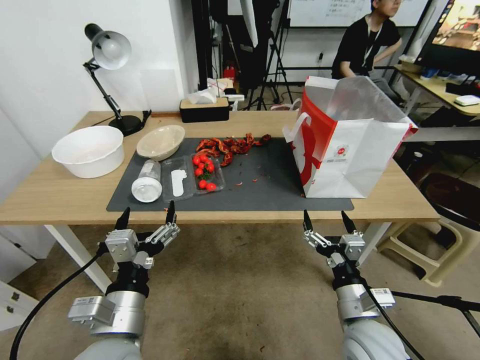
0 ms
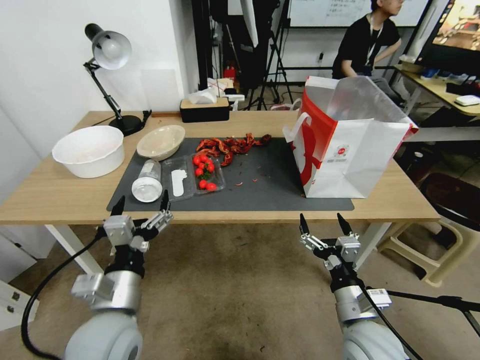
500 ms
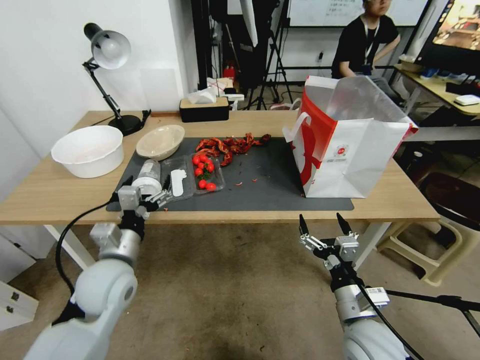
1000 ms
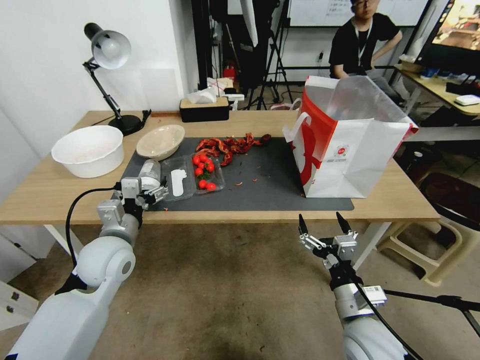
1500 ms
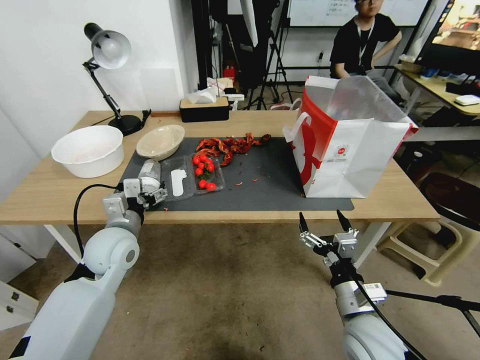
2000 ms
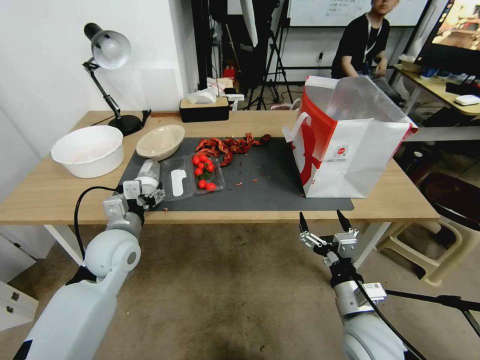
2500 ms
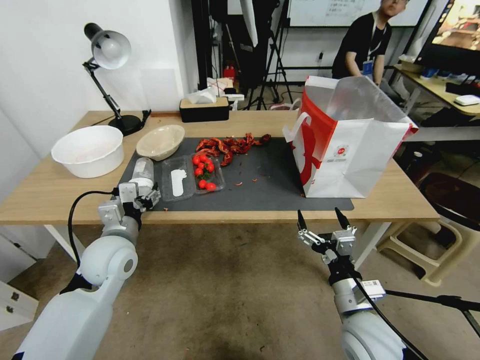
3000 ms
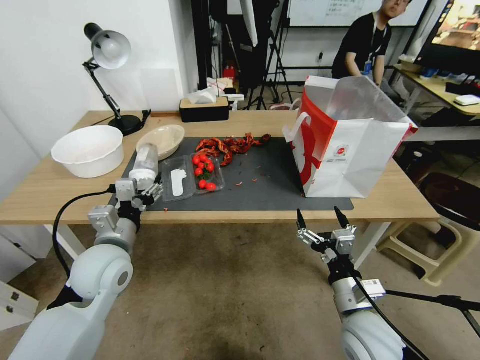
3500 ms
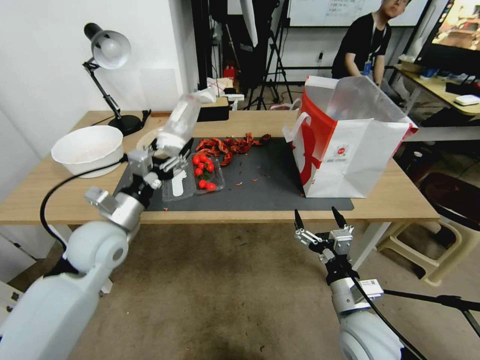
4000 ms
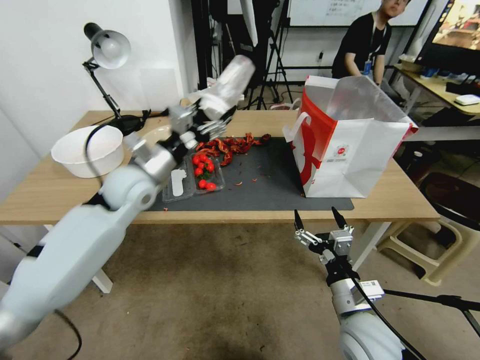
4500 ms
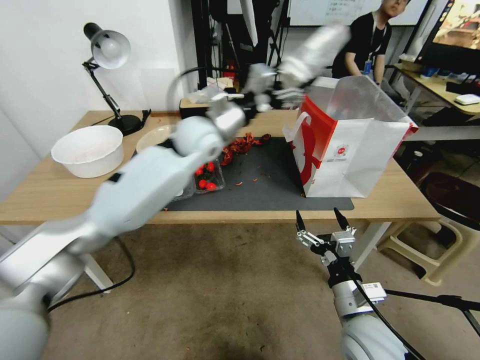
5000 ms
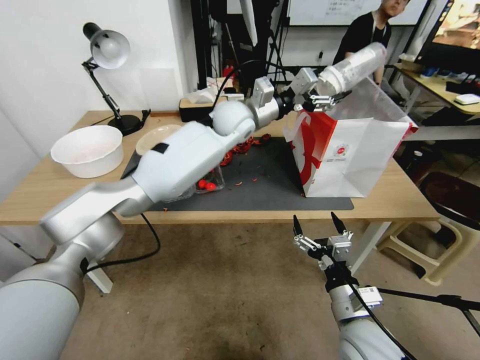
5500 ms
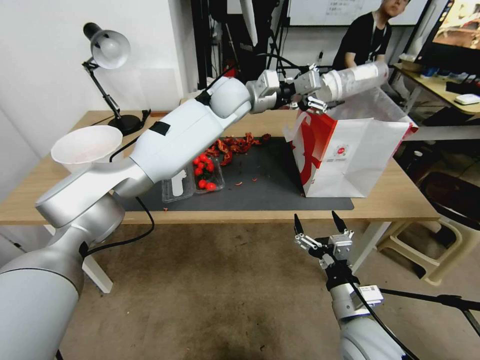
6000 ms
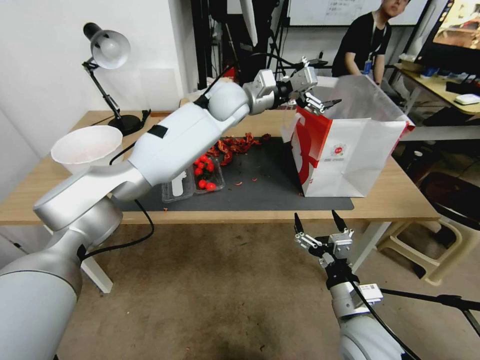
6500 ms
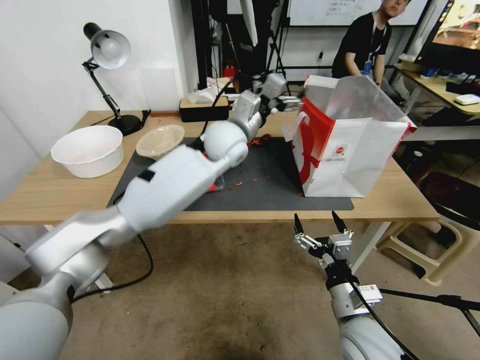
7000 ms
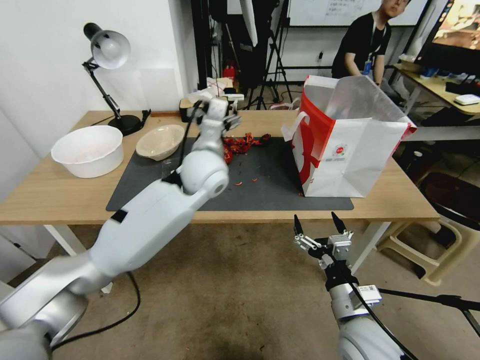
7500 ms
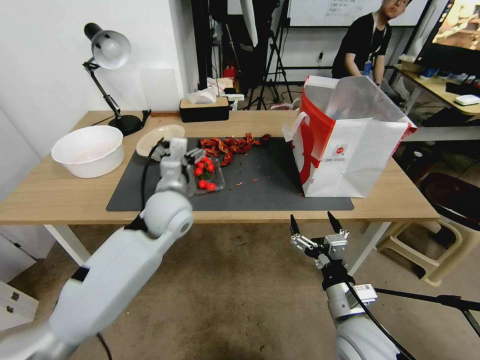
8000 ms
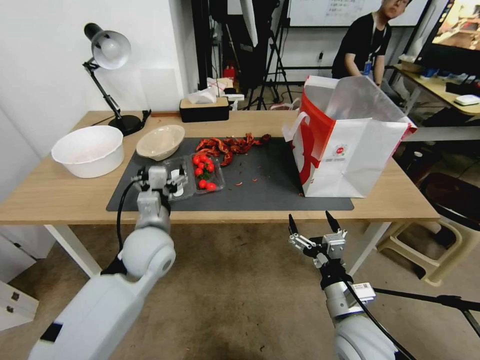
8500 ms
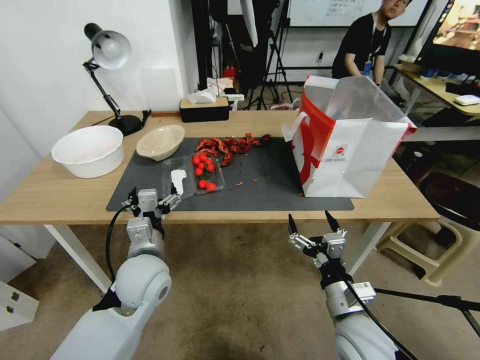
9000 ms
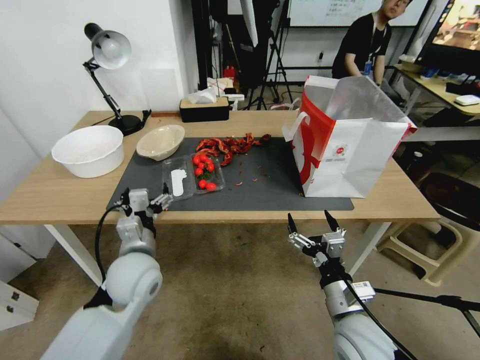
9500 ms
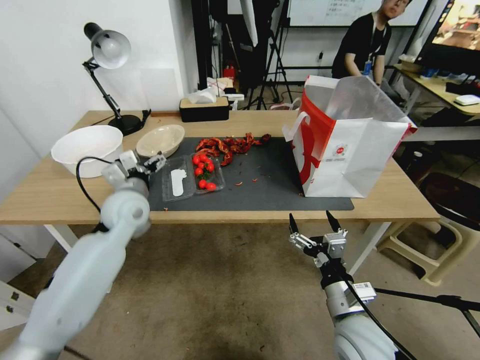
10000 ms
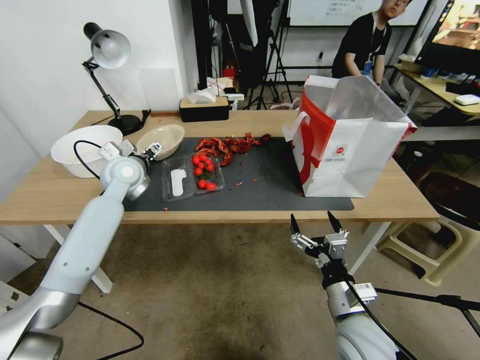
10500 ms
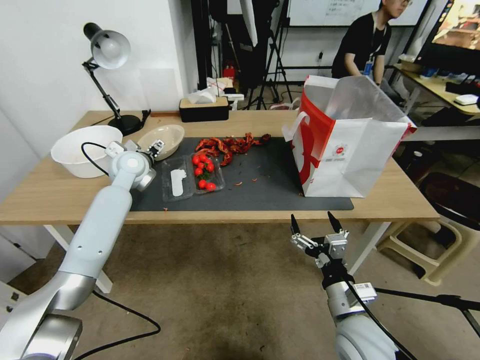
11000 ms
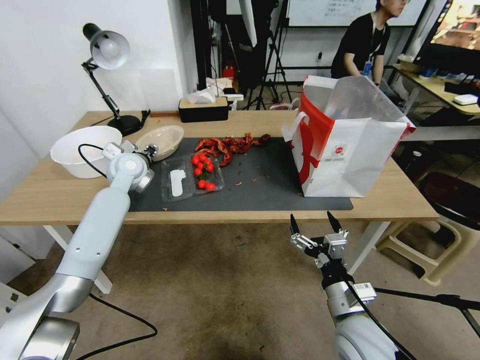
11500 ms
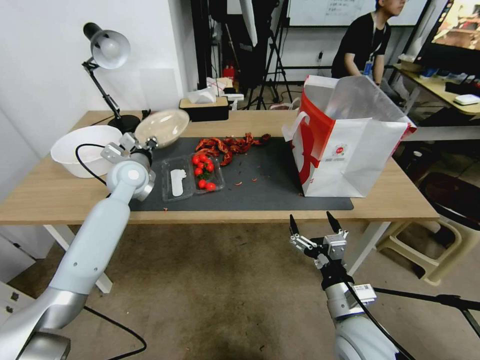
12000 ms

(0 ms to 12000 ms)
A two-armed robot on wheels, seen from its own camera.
0 ms - 2000 ms: The left gripper travels forward by approximately 20 cm.
2000 ms - 4000 ms: The left gripper closes.
4000 ms - 6000 ms: The left gripper moves forward, to the right and upward, approximately 40 cm.
6000 ms - 8000 ms: The left gripper travels backward, downward and to the left by some 30 cm.
8000 ms - 10000 ms: The left gripper shifts some 10 cm to the left, and travels backward and back again, about 10 cm each way.
10000 ms - 12000 ms: The left gripper goes about 10 cm forward, and closes its fingers.

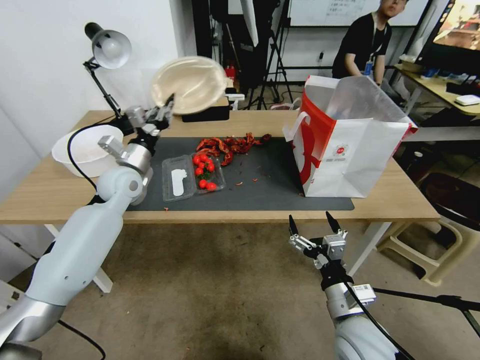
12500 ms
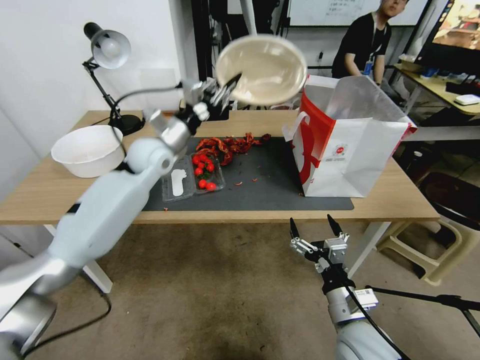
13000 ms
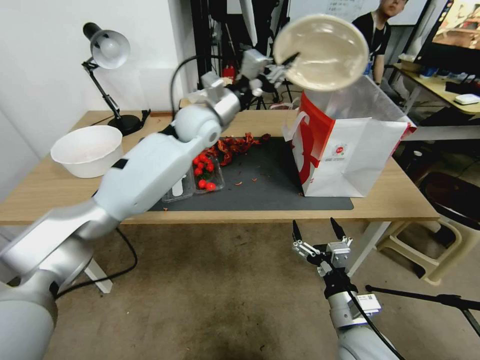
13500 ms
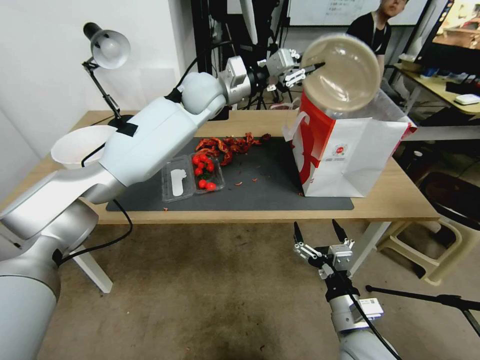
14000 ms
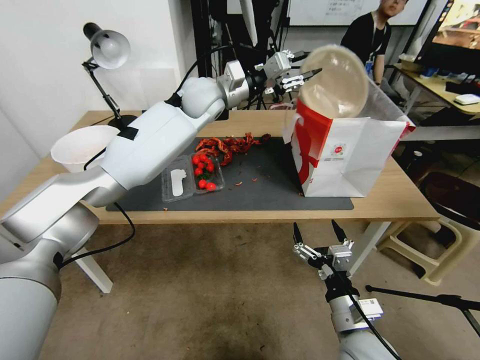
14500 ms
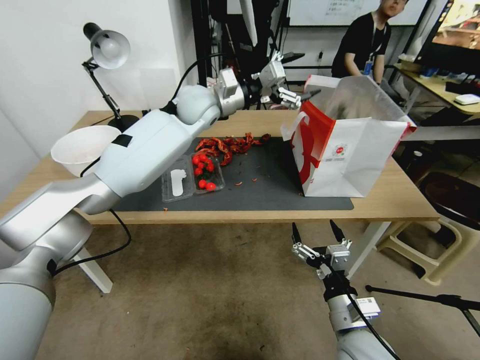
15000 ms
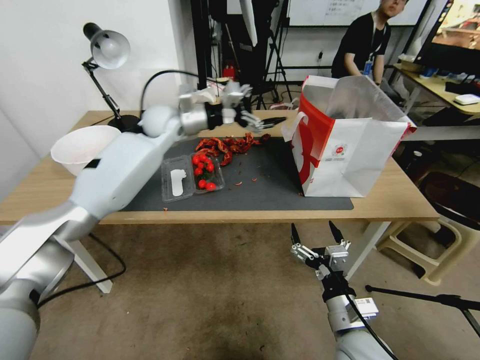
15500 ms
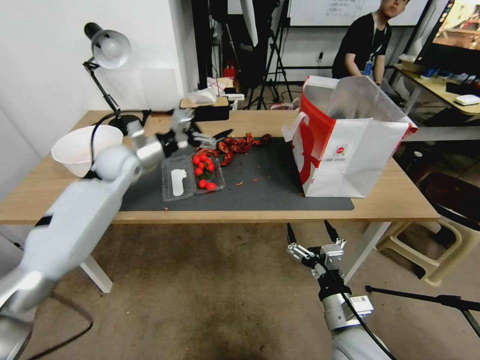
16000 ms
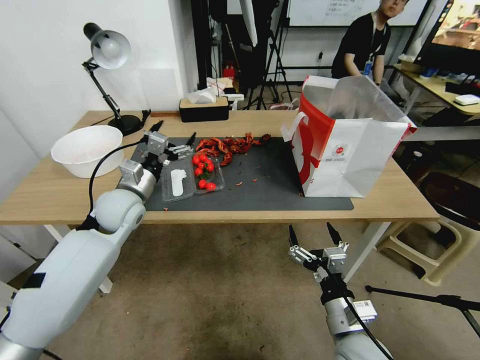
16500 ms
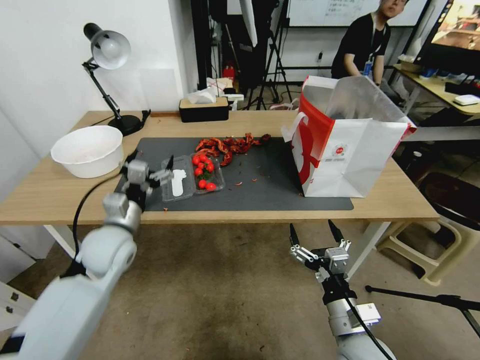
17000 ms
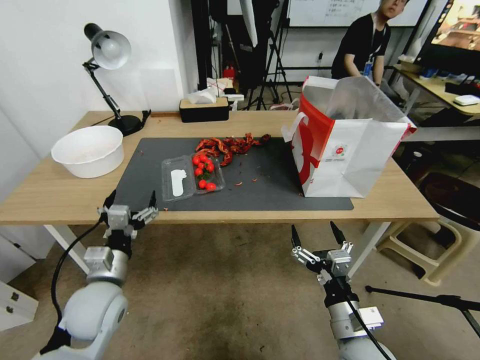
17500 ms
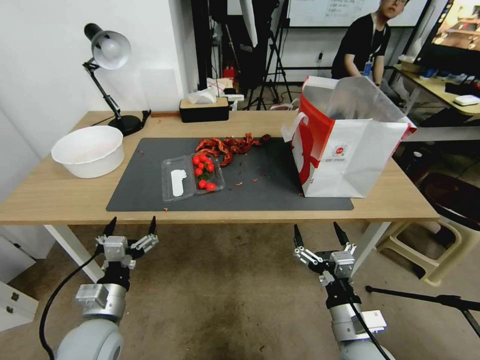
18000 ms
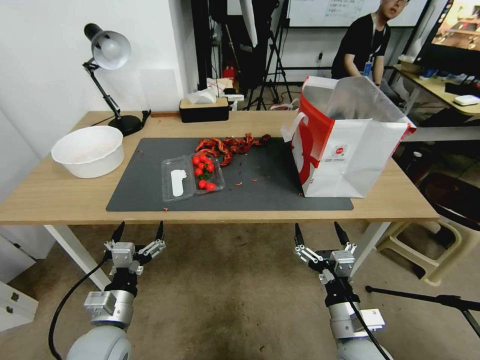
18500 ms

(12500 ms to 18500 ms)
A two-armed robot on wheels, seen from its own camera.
12500 ms - 14500 ms: The left gripper moves to the right, upward and forward, some 30 cm.
14500 ms - 16500 ms: The left gripper shifts about 30 cm backward, to the left and downward, and opens its fingers.
16500 ms - 18500 ms: The left gripper is displaced backward and downward by roughly 25 cm.

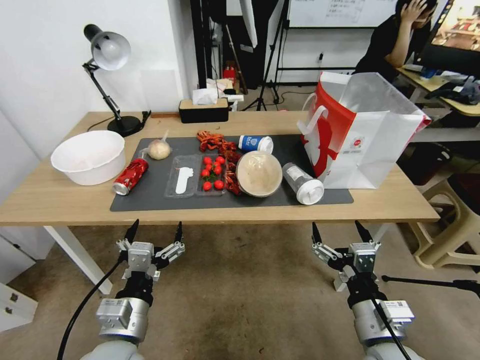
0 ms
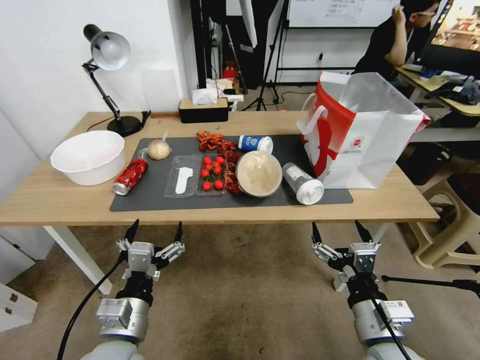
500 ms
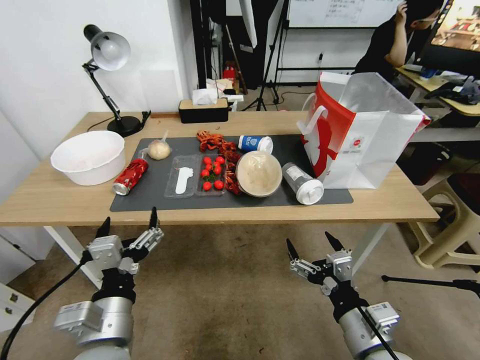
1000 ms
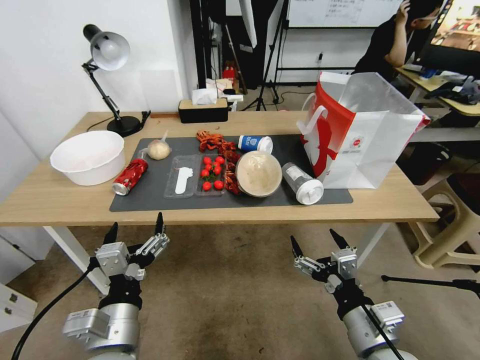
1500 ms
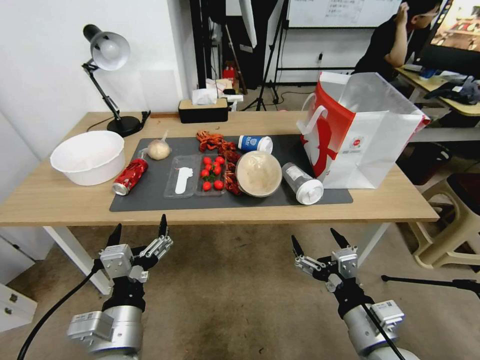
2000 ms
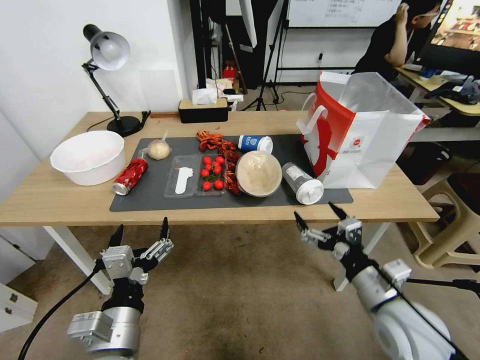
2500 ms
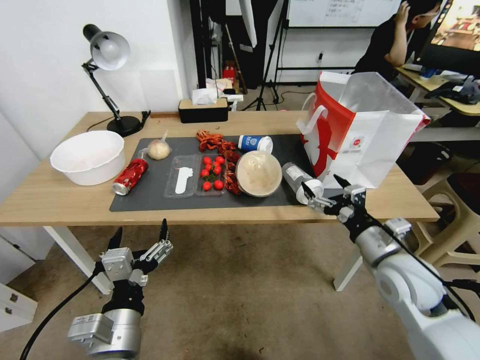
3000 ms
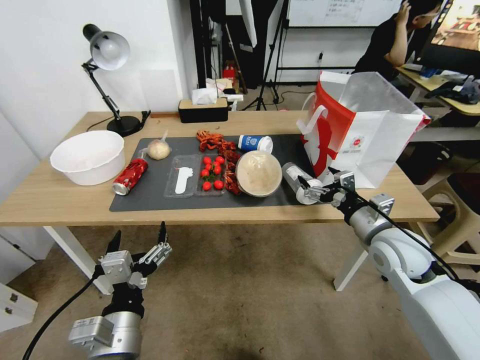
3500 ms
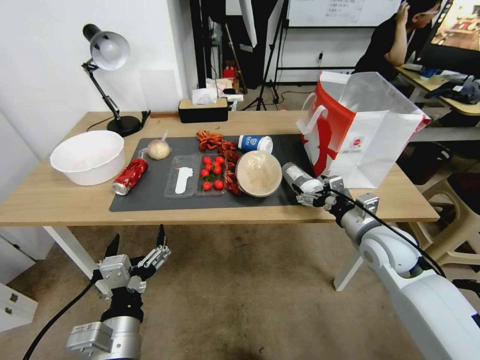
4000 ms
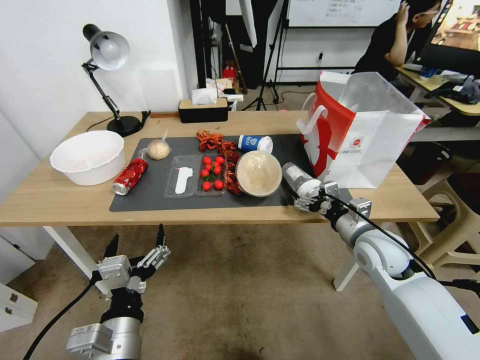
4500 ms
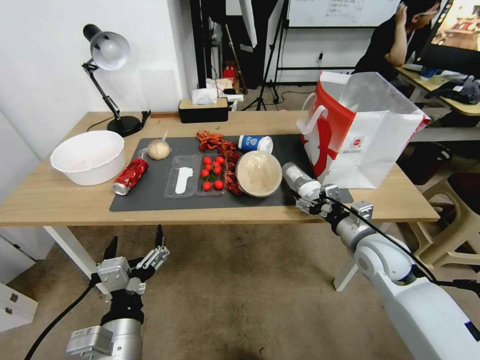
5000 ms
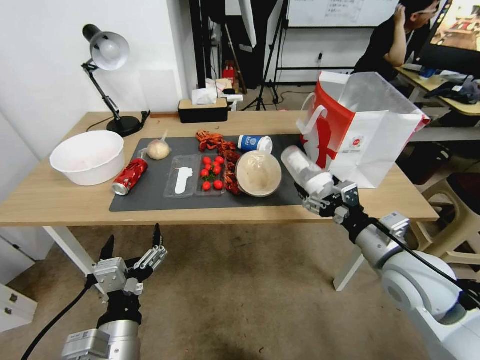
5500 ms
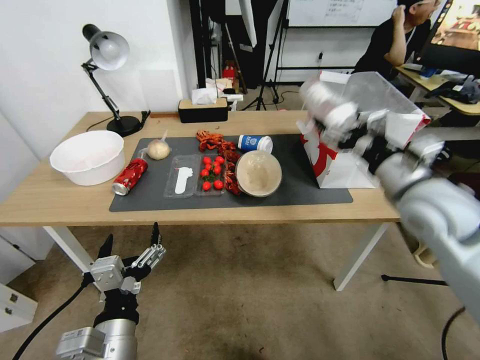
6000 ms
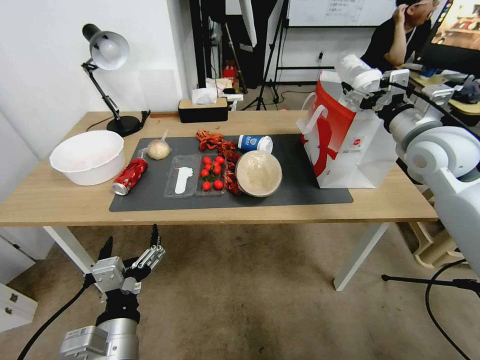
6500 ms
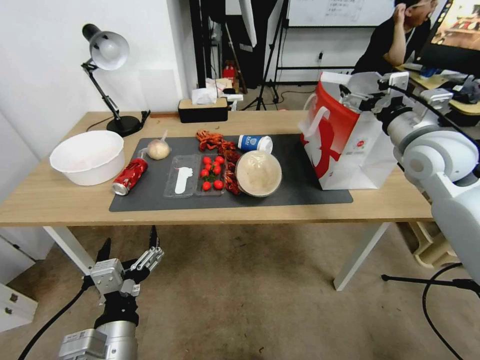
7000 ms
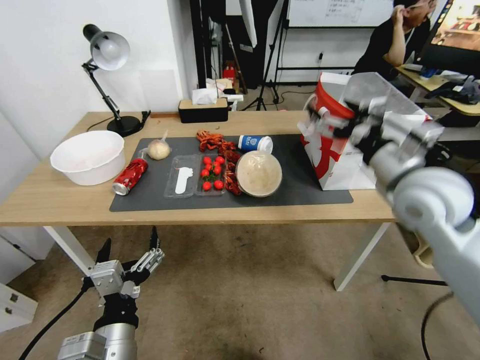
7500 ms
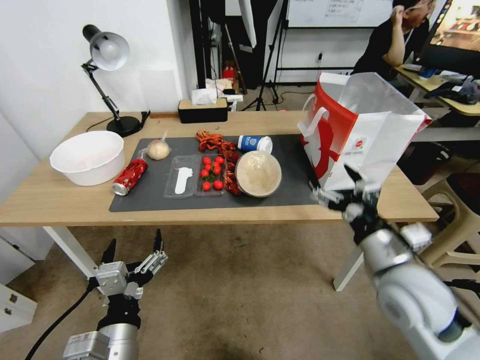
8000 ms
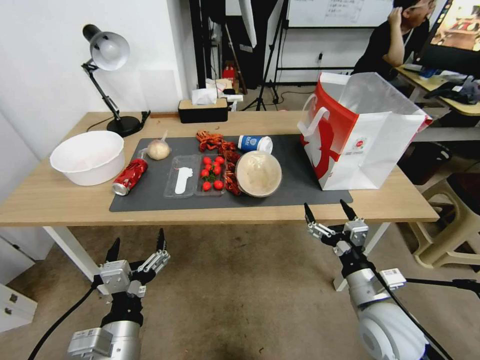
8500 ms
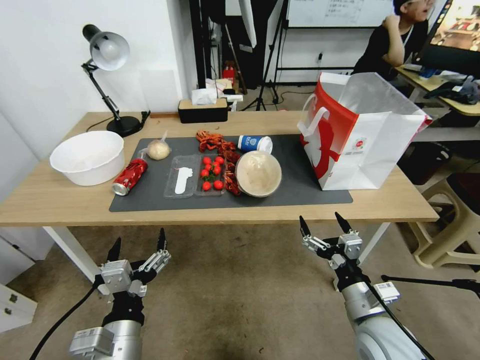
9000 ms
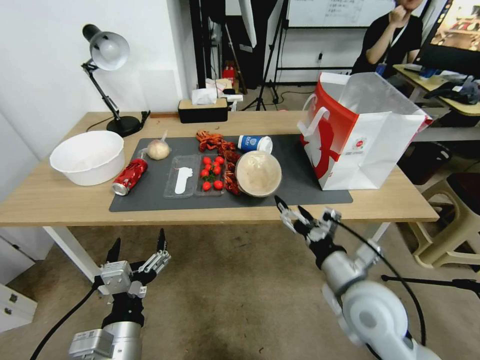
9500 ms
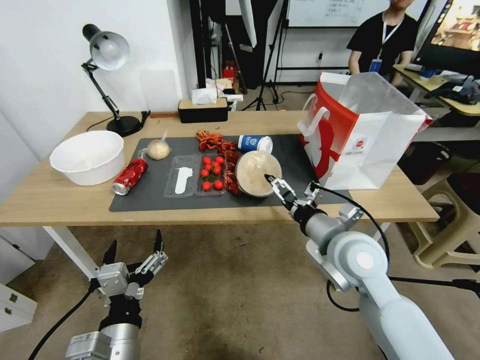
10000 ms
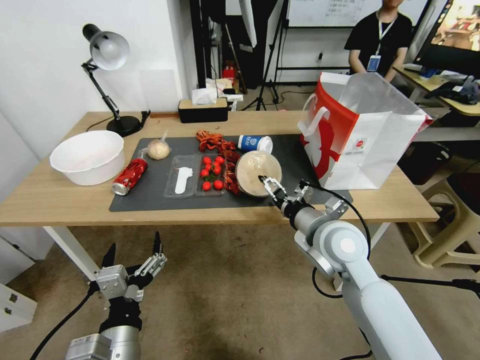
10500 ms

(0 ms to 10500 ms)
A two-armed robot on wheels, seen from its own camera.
2000 ms - 4000 ms: The right gripper shifts some 20 cm forward.
4000 ms - 6500 ms: The right gripper goes approximately 20 cm upward and forward.
6500 ms - 8500 ms: The right gripper shifts roughly 35 cm downward and backward.
8500 ms - 10500 ms: The right gripper travels forward, upward and to the left by some 15 cm.
